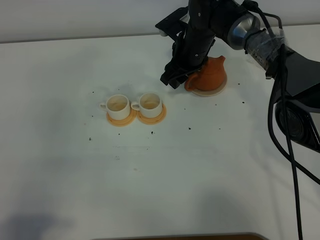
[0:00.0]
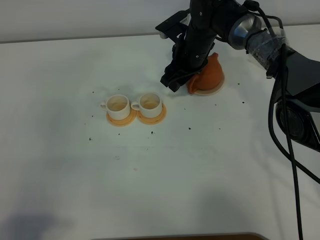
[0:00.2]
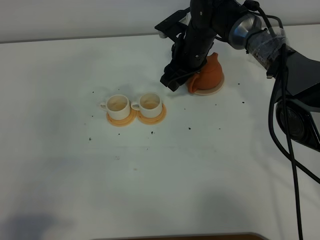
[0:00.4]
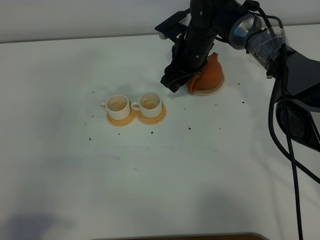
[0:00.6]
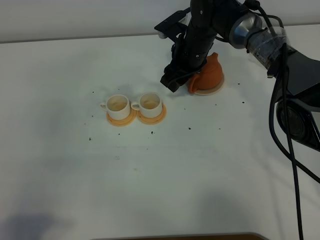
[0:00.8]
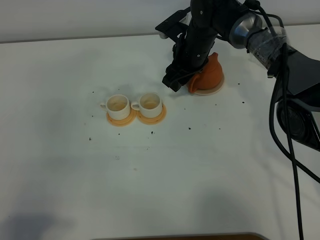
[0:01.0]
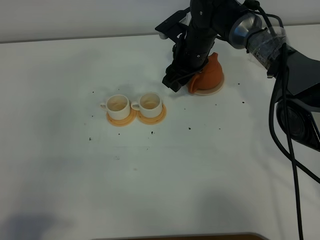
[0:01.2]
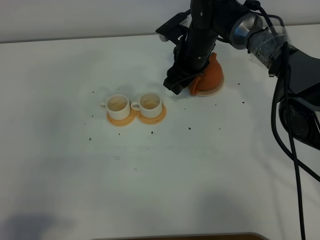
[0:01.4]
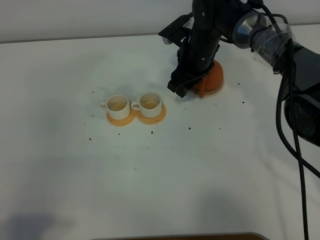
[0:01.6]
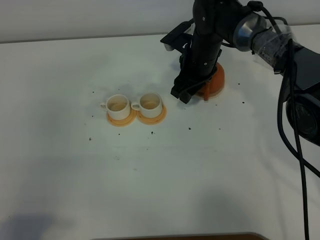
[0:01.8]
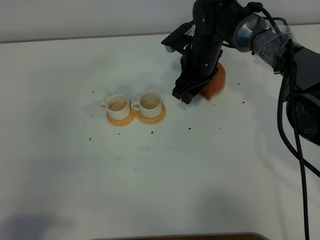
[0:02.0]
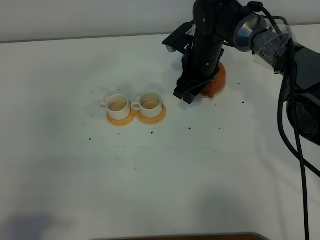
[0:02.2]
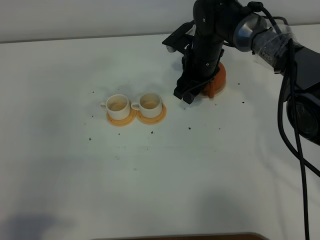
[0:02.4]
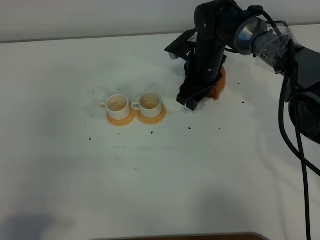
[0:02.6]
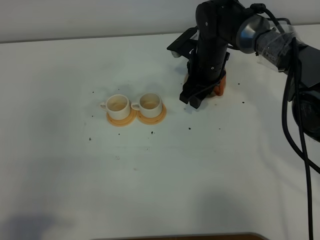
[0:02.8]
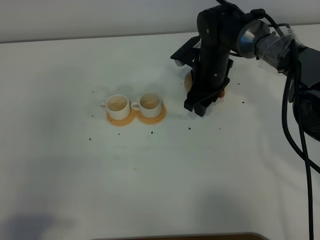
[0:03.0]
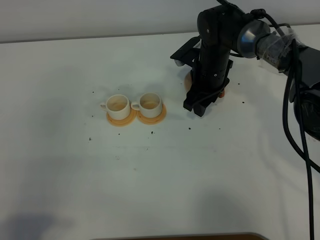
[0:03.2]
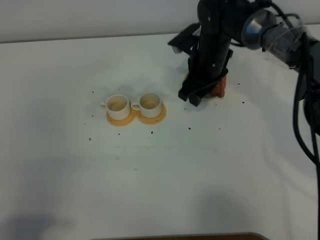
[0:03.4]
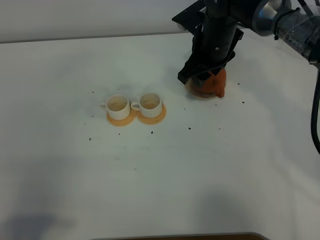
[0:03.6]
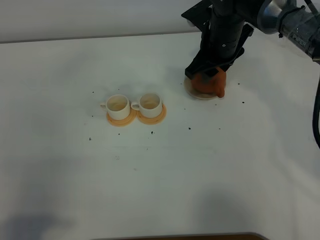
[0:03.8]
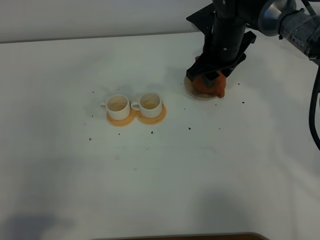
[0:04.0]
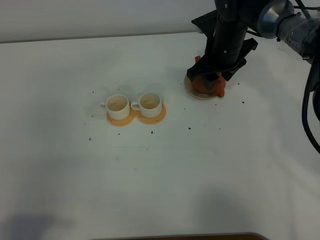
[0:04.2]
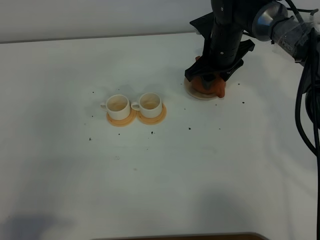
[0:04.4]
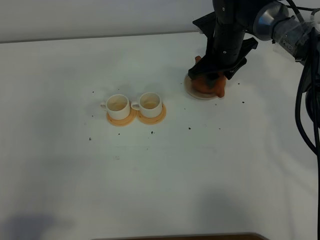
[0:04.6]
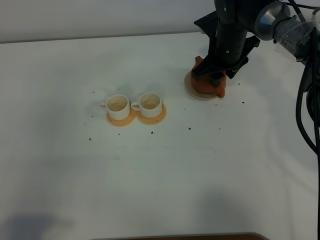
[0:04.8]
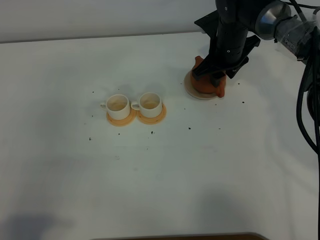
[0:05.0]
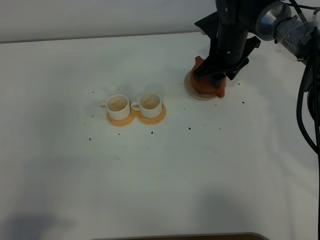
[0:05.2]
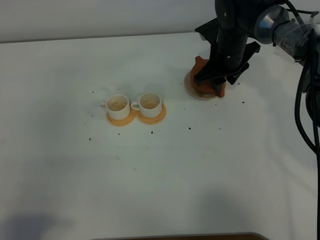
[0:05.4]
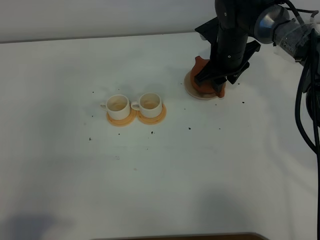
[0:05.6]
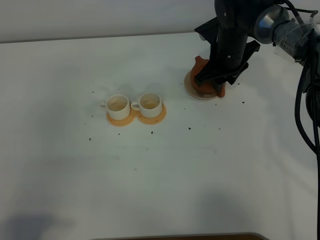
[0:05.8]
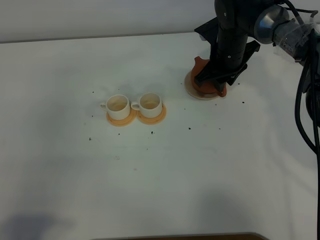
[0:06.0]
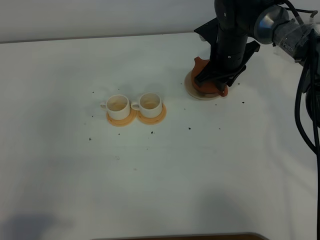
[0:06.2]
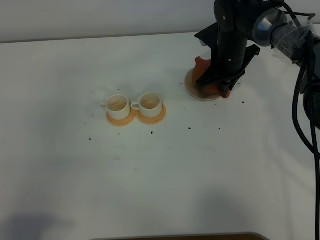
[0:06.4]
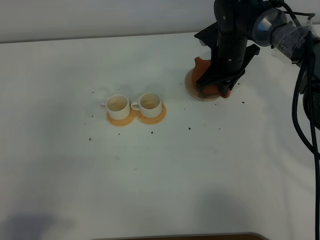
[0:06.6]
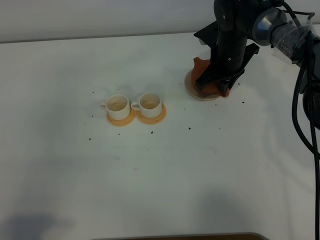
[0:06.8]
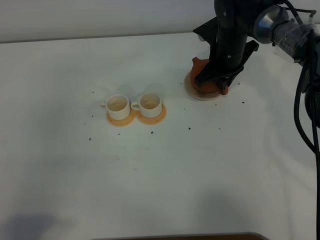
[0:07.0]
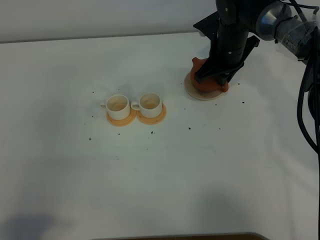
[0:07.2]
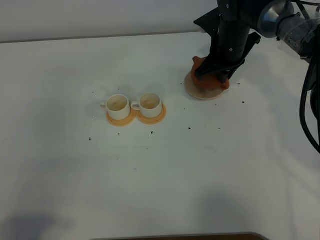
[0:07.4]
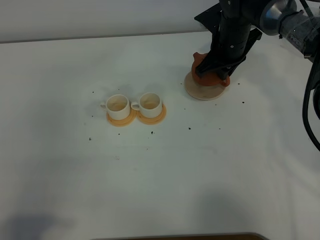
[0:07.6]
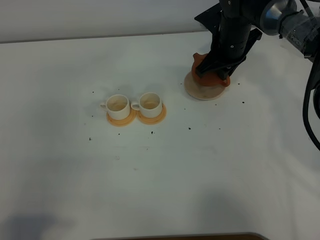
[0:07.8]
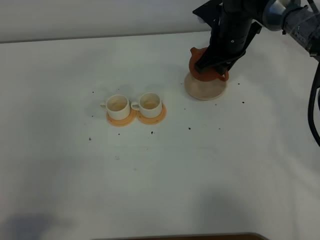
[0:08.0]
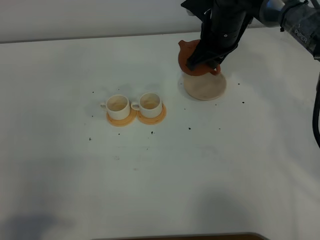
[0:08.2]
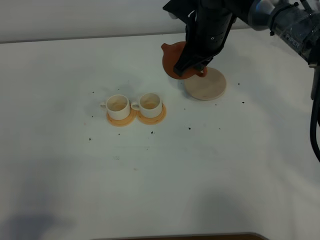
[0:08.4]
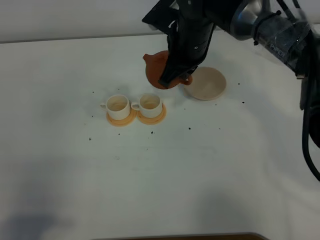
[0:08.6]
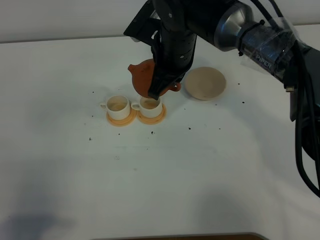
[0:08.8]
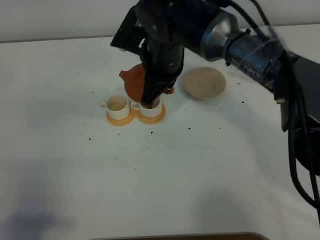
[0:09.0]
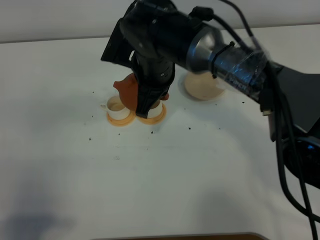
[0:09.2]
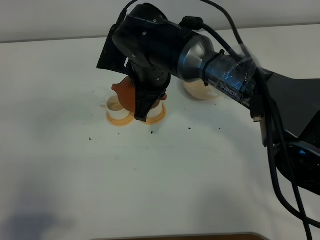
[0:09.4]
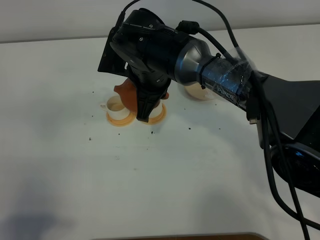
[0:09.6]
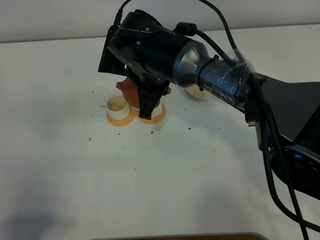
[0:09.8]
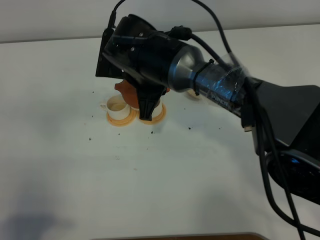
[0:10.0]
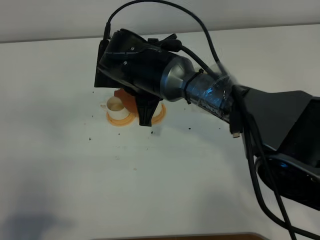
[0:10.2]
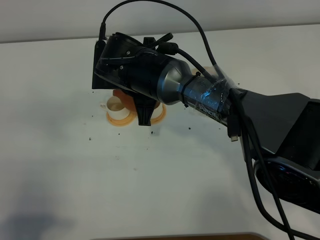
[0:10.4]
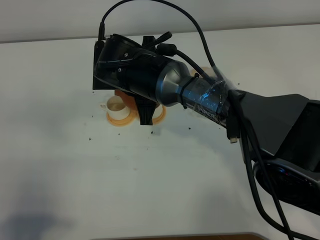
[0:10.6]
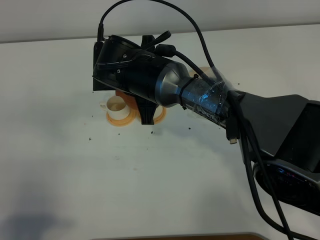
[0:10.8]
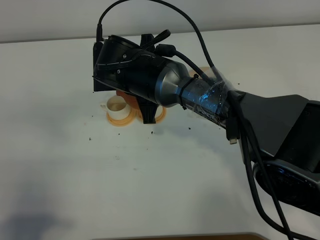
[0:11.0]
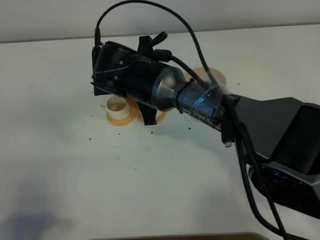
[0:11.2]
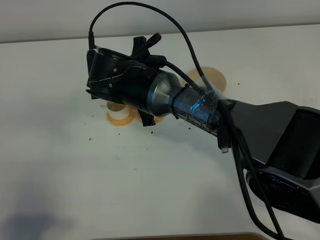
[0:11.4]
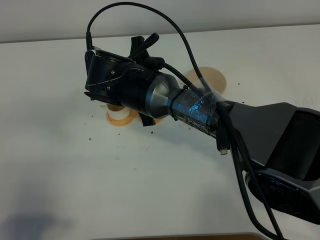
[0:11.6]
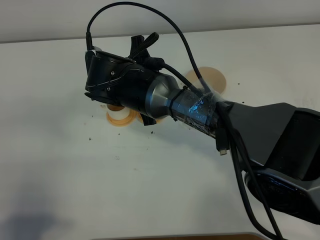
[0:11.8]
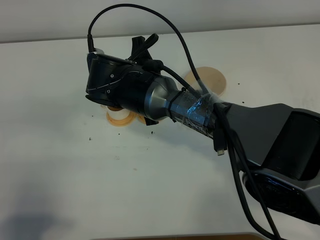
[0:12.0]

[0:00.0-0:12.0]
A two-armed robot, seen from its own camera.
Task of the whole recording: grasp the brown teapot and pour the tea into the two white teacups one by one, put the brown teapot back in its original place.
Step, 0:00.0 to 0:08.4: Pick up the teapot with the right gripper.
0:00.0 to 0:03.0: The grippers stay close to where they were, moving slightly.
0:04.4 to 0:06.0: The right gripper closes its fingers.
0:06.0 to 0:07.6: The right gripper closes up.
0:07.6 to 0:09.0: The right gripper is displaced backward, to the left and upward by about 15 cm.
0:09.0 to 0:10.4: The right gripper ends up roughly 5 cm from where it was.
0:10.4 to 0:12.0: There are only small adjustments of the grippers.

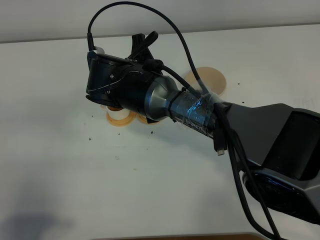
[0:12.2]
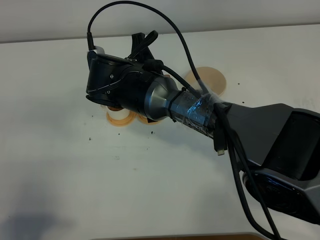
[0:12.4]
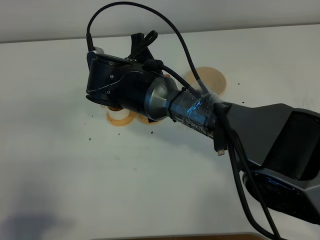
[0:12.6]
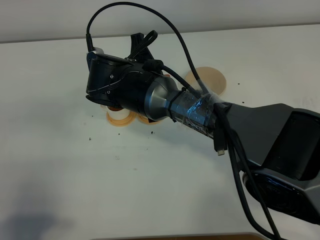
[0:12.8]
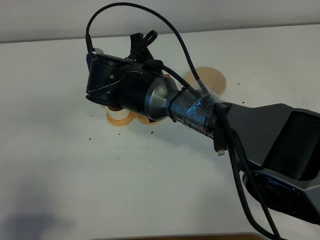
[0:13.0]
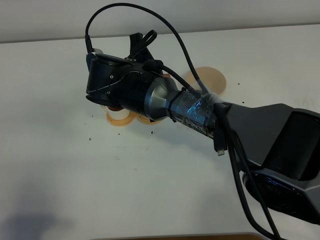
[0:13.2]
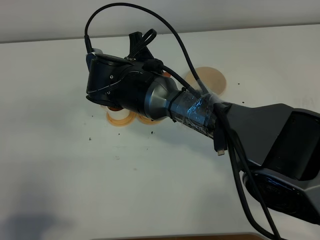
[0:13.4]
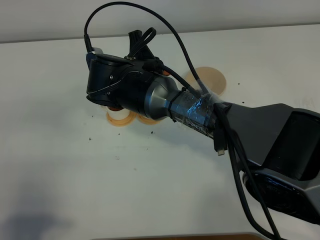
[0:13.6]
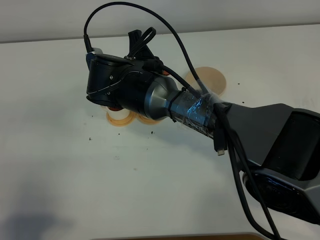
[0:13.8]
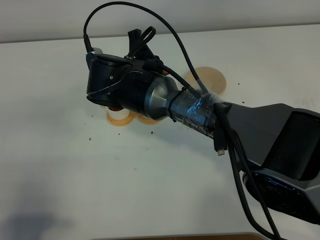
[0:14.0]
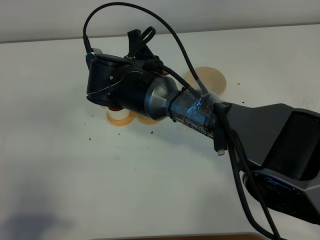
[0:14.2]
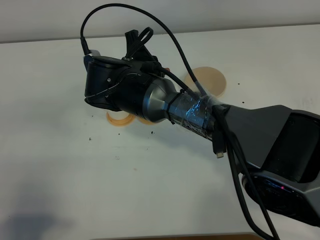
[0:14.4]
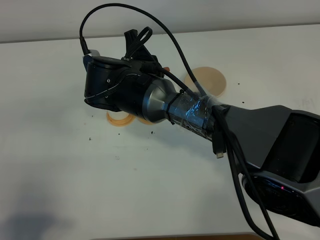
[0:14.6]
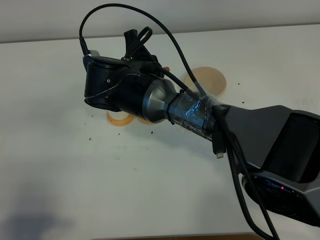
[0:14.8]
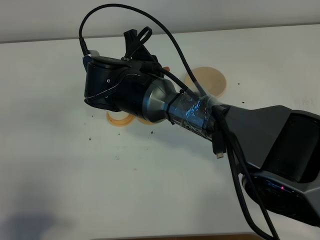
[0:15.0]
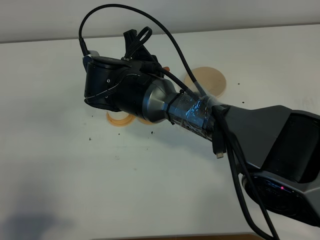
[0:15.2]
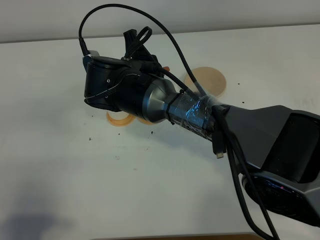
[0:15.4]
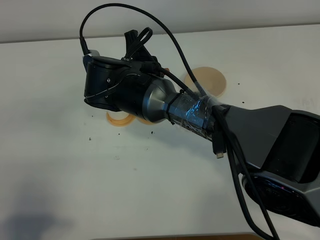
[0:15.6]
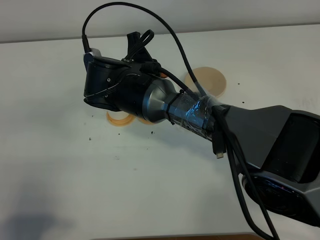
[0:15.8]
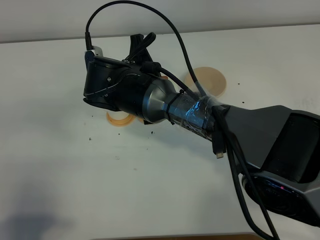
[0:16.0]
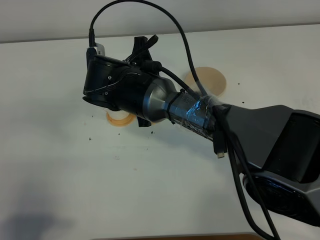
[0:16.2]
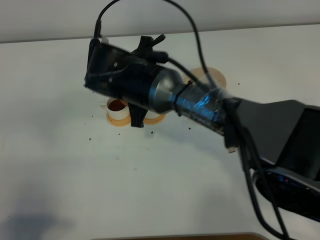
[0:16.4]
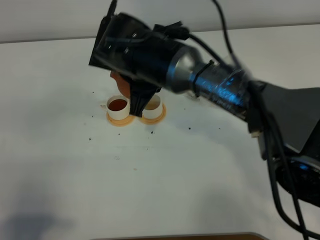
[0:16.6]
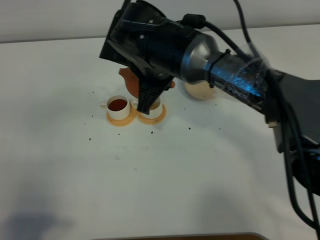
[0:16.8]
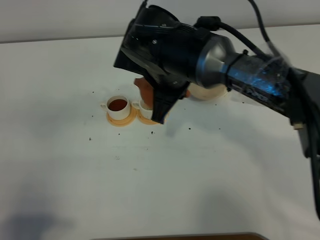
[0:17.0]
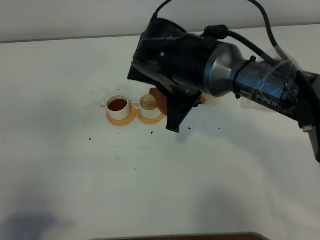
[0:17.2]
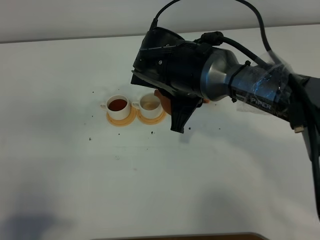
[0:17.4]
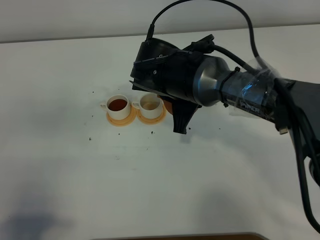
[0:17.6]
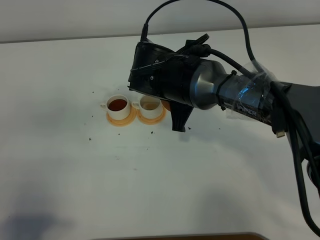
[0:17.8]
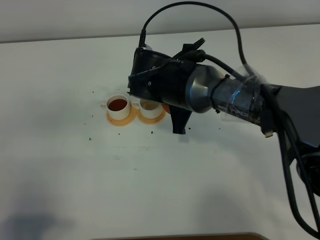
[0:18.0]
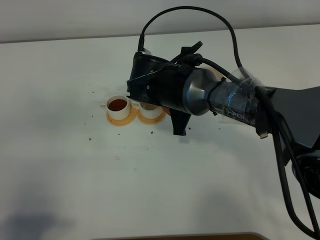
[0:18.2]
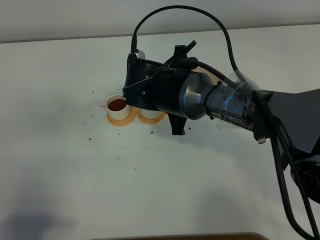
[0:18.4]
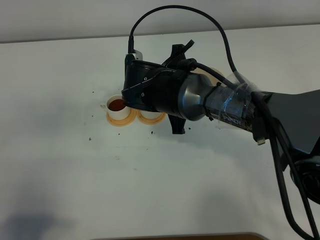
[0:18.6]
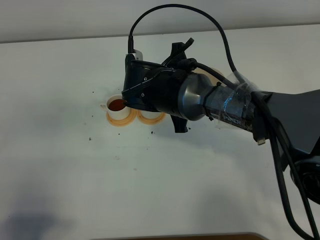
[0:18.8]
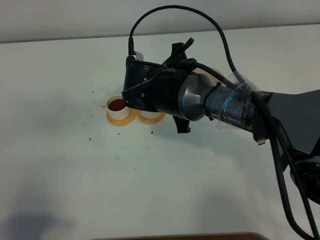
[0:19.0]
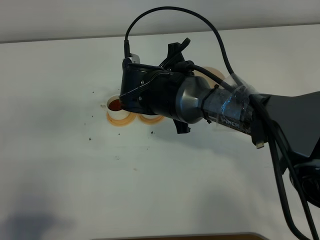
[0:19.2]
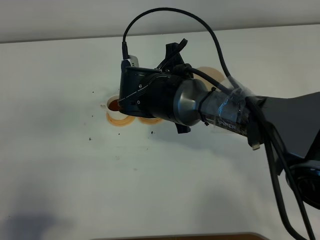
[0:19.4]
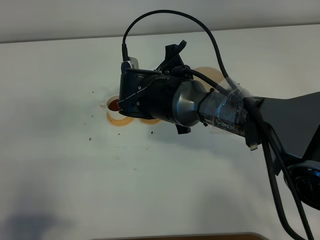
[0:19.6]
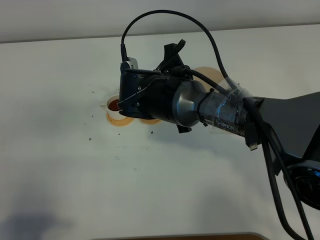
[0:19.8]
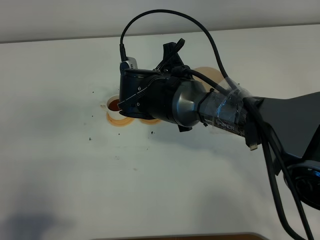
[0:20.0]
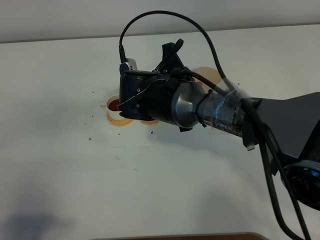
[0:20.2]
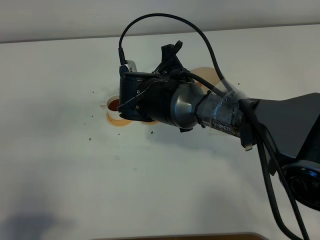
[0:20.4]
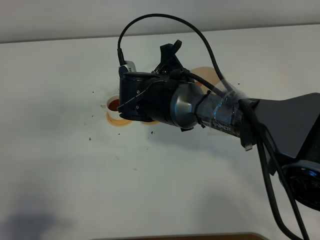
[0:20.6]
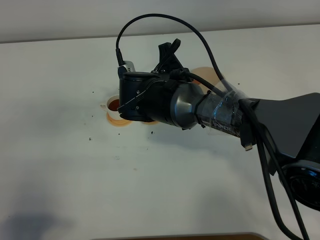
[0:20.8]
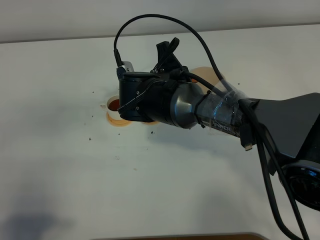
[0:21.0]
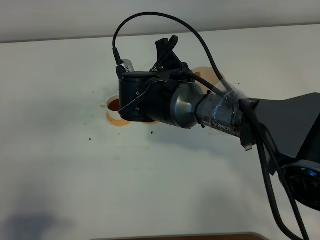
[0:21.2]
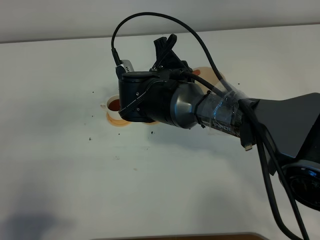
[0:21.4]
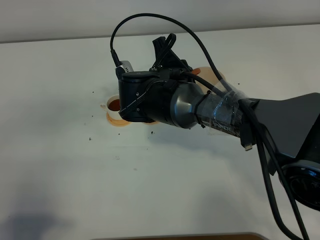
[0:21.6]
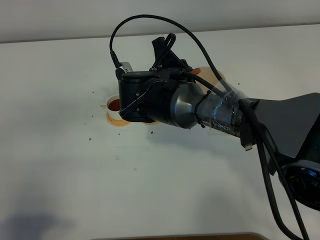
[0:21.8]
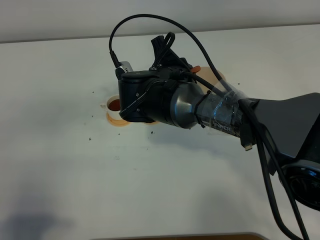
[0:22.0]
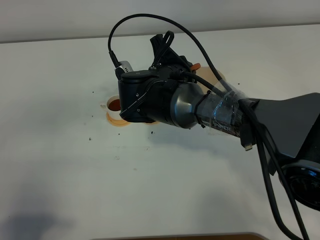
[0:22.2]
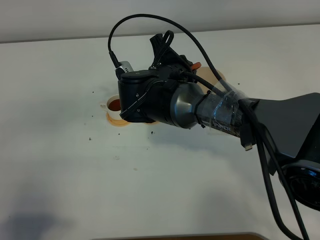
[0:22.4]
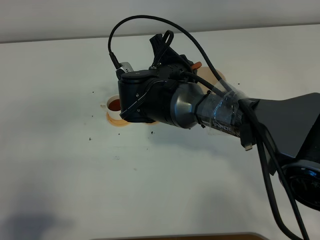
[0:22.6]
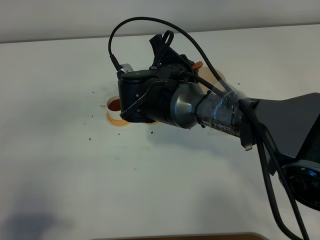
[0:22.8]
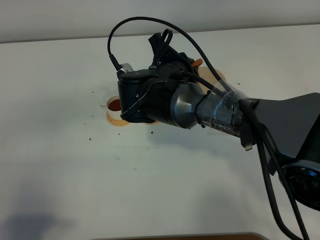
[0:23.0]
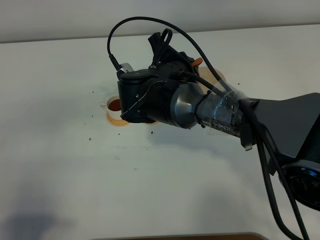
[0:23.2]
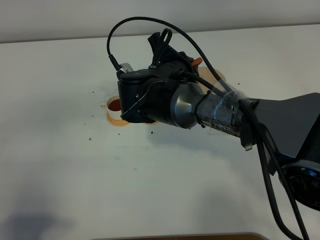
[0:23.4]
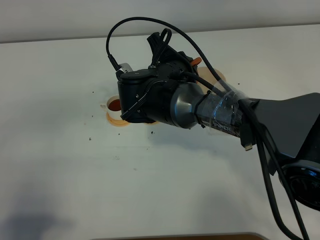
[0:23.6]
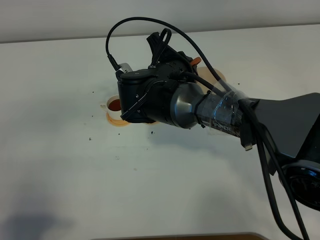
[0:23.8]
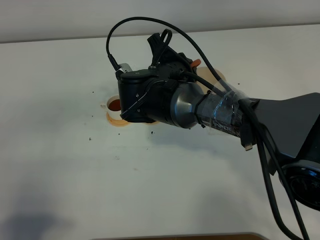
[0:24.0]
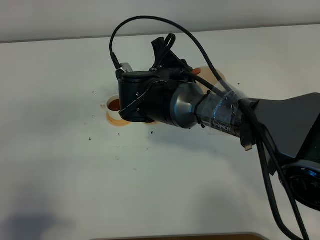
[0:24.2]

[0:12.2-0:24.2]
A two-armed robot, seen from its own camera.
Task of the whole recording: grasp the brown teapot and pour the tea into the two white teacups one by one, put the brown teapot back in its original place.
Step, 0:12.2 to 0:17.2: Pour tea into the teacup with the right gripper.
0:12.2 to 0:13.8: The grippers make only small movements.
0:13.8 to 0:15.2: The two grippers keep their place.
0:16.6 to 0:18.2: The right gripper shifts some 5 cm downward.
0:18.2 to 0:19.8: There are only small adjustments of the grippers.
0:19.8 to 0:21.2: The grippers make only small movements.
0:21.2 to 0:24.2: There are only small adjustments of the grippers.
